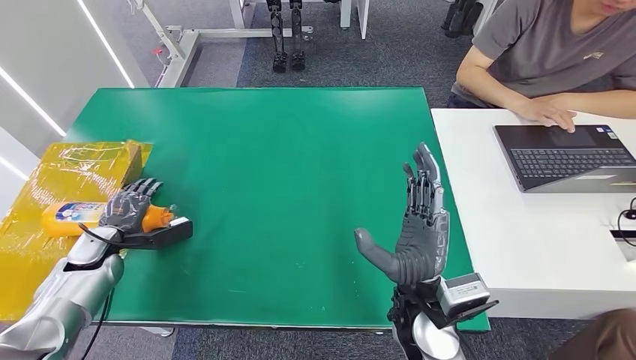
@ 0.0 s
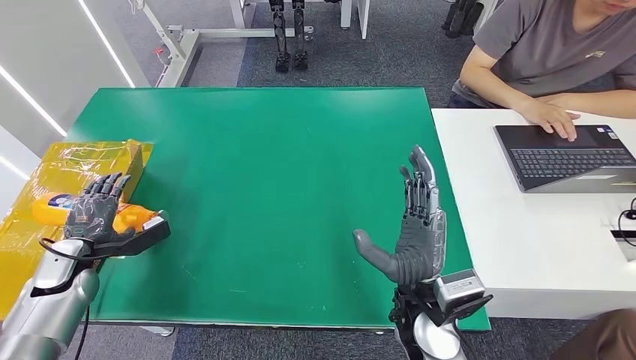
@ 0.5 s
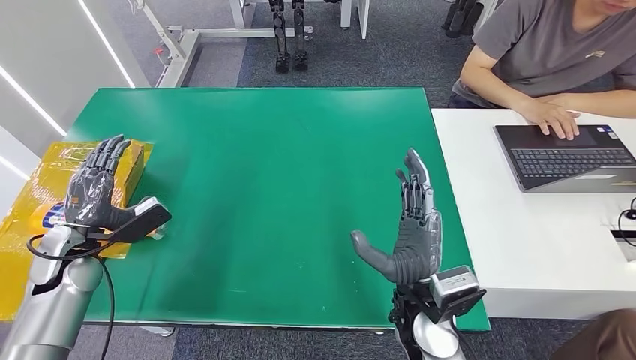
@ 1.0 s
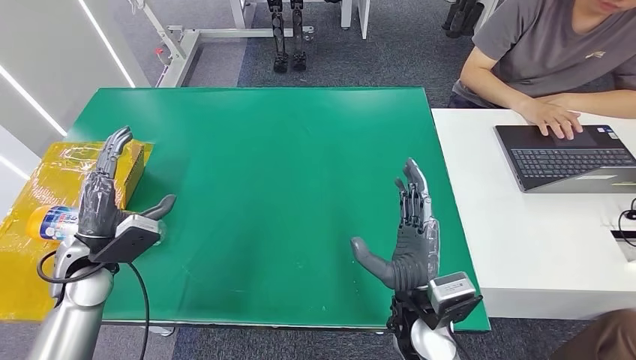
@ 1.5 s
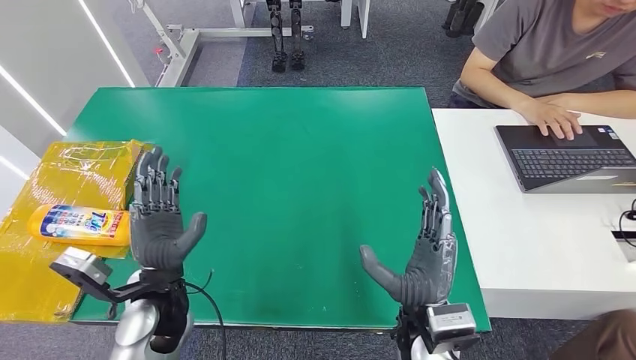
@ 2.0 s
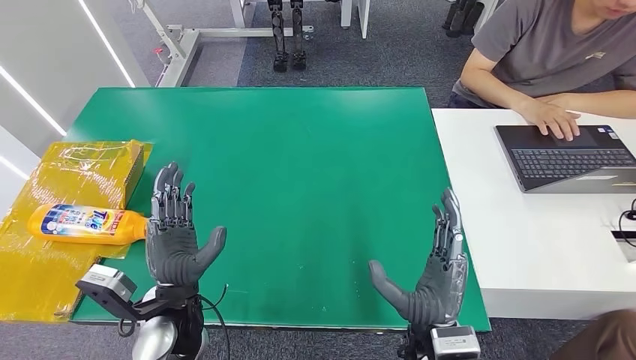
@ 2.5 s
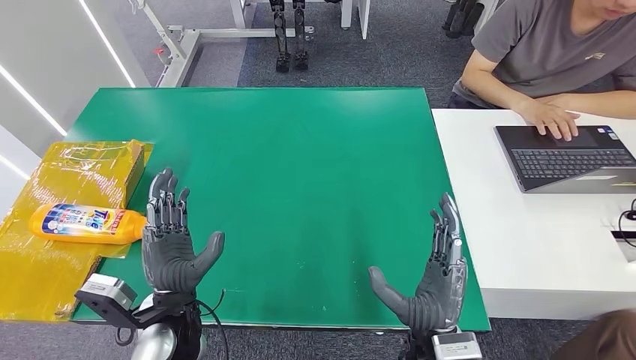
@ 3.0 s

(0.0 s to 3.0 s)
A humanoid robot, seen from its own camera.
Step, 0.0 s - 3.0 s: Turn the bottle to the front side.
0.0 s - 1.5 s: The left hand travels upward, to the right and backward by approximately 10 cm.
1.5 s - 3.0 s: The left hand heads to the right and backward, covering about 20 cm. Meanwhile the right hand travels backward by roughly 5 cm.
